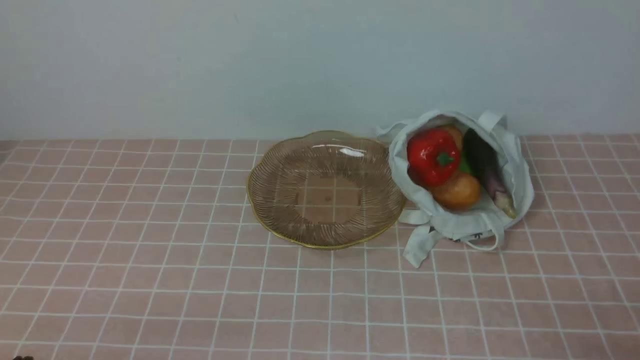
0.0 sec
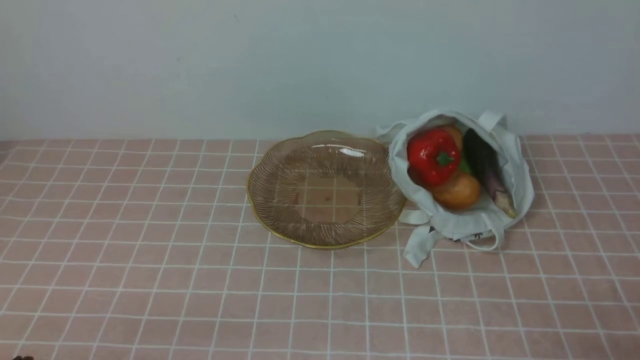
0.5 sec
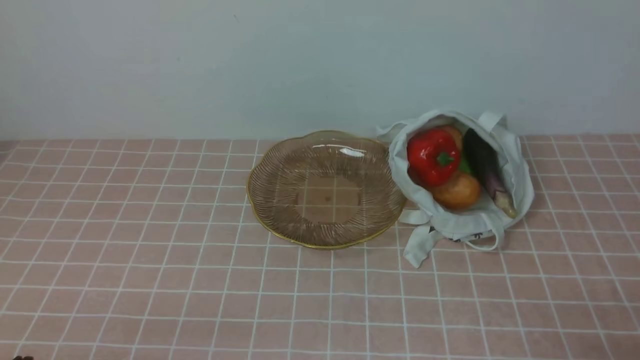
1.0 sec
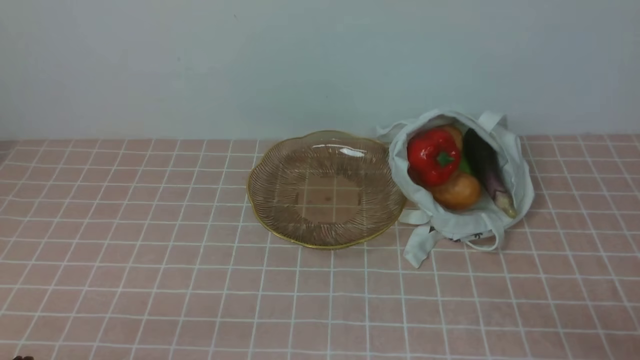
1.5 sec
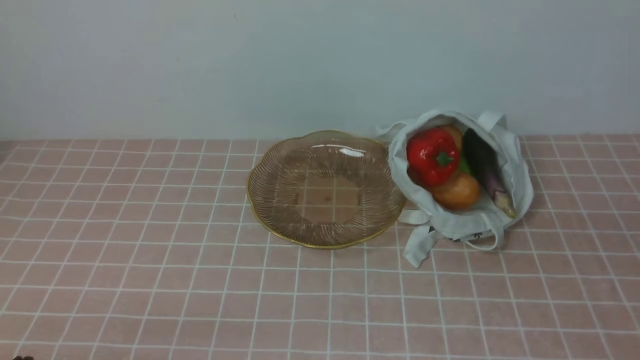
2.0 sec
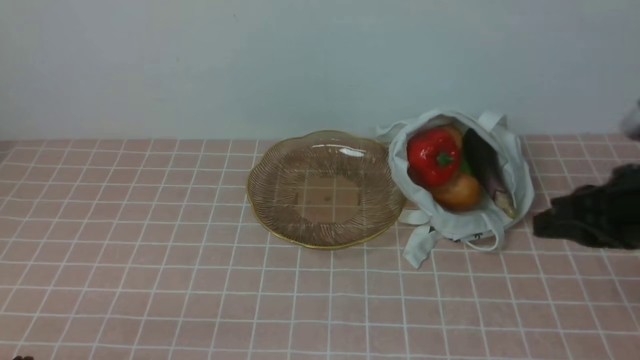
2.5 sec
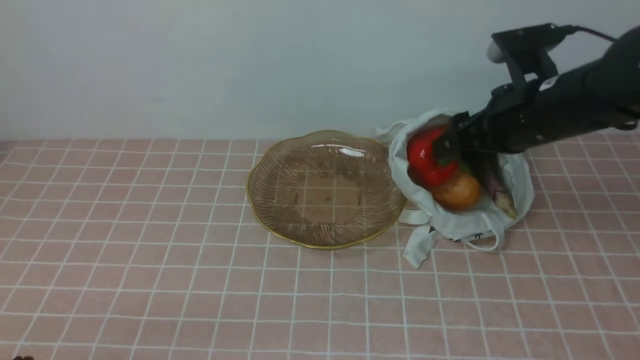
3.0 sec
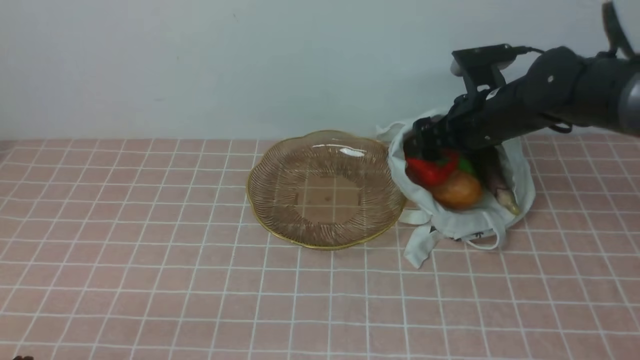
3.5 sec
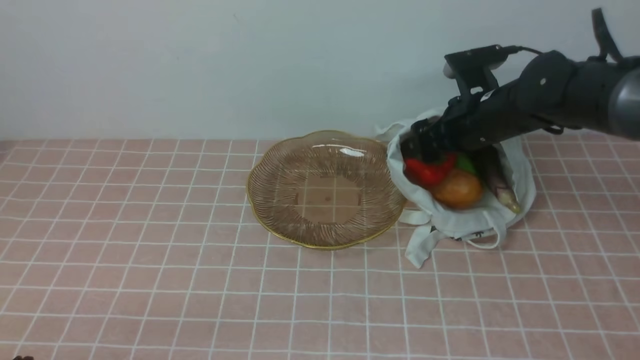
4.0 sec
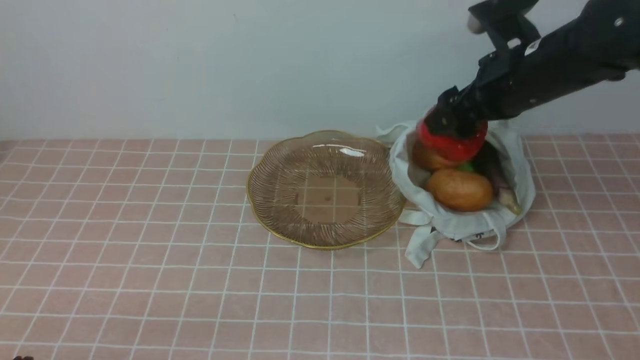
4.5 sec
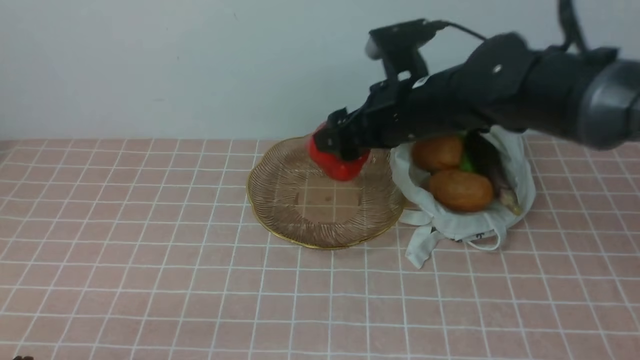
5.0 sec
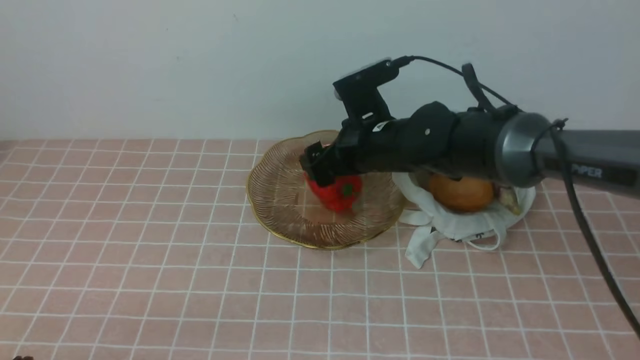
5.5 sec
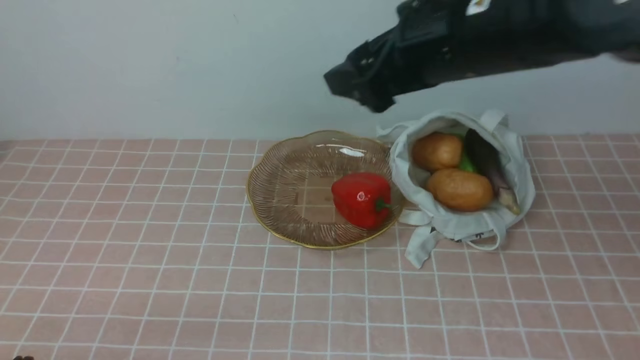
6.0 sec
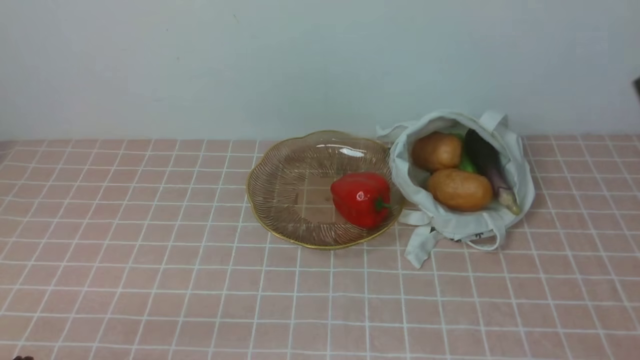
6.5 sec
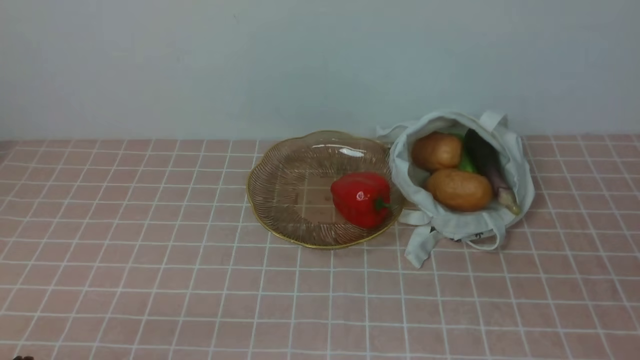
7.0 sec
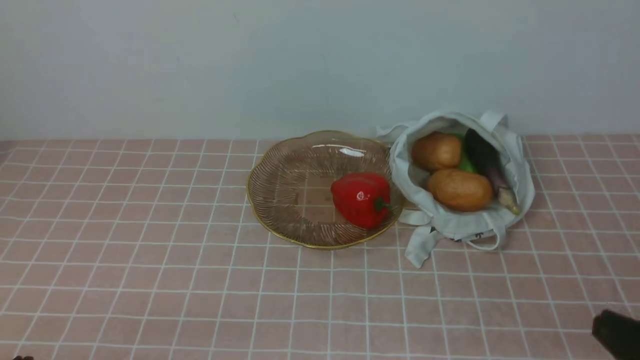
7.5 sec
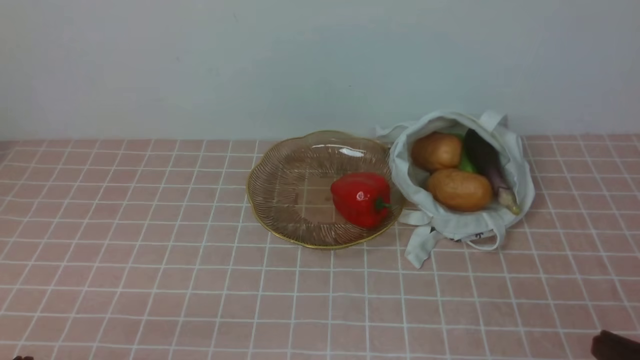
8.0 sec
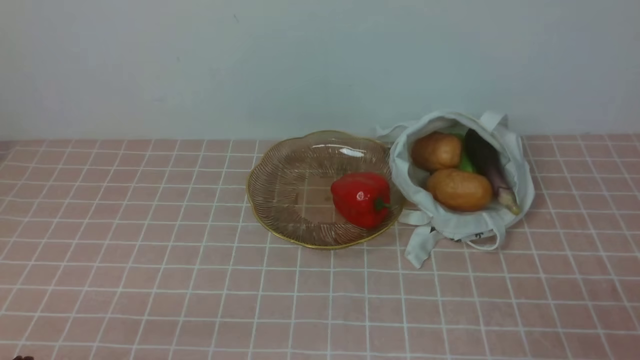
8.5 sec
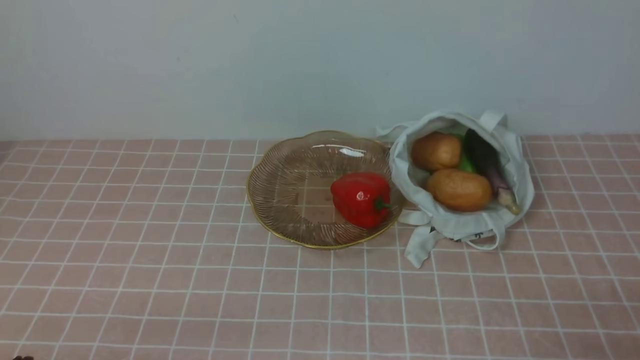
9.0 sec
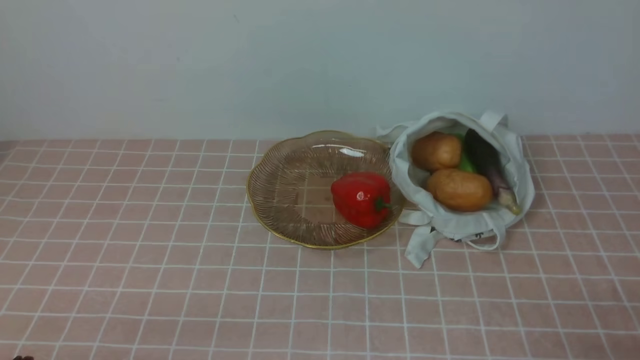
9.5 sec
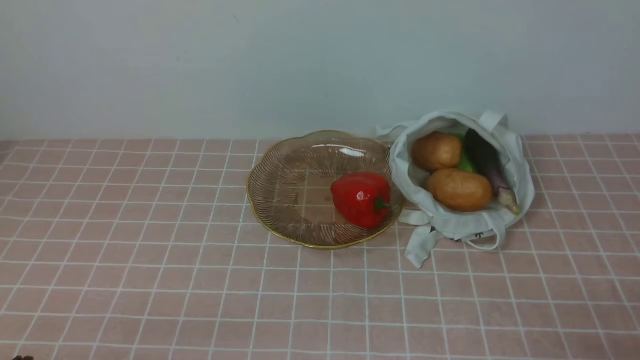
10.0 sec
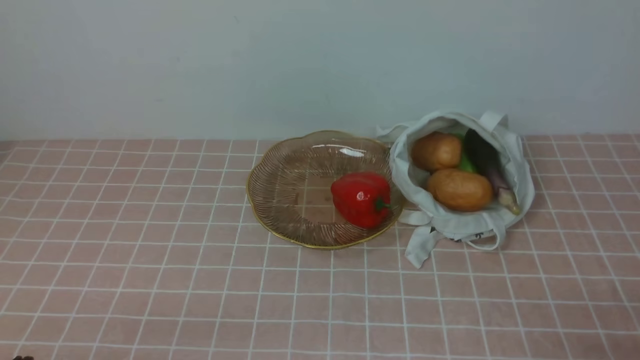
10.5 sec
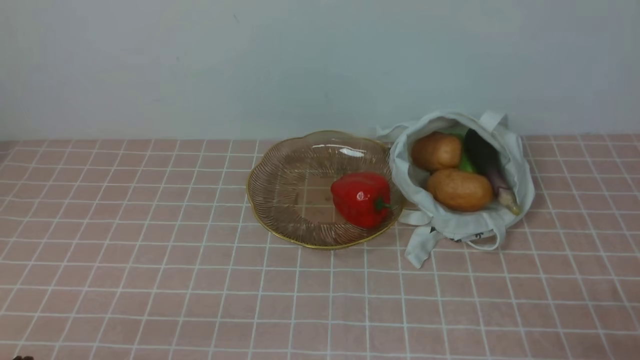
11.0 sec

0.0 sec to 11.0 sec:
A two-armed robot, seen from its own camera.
Task of the whole recording: take vegetables from bag on pink coffee tablecloth place on plate.
Step, 0.0 sec to 3.5 sec: Grasp the bell pepper with right gripper.
Step, 4.5 sec to 5.5 sec: Place the bell pepper on the plate with right gripper.
2.0 sec to 3.5 sec: The right gripper travels forward by approximately 35 cm, and opens.
3.5 sec to 5.5 sec: The right gripper heads to the left, covering approximately 15 cm.
5.5 sec to 7.5 sec: The right gripper travels backward and to the right by some 40 cm, and closes its fingers.
7.5 sec to 9.0 sec: The right gripper heads downward, covering approximately 5 cm.
9.0 sec to 11.0 sec: Neither gripper changes place.
